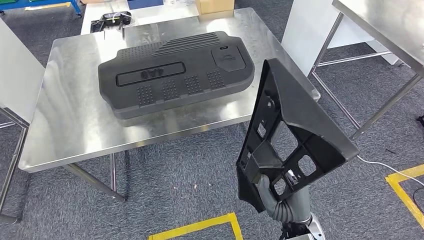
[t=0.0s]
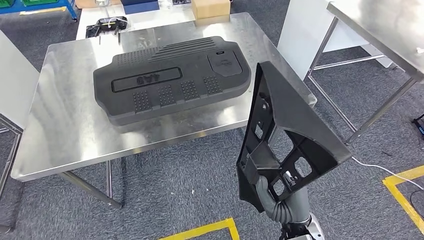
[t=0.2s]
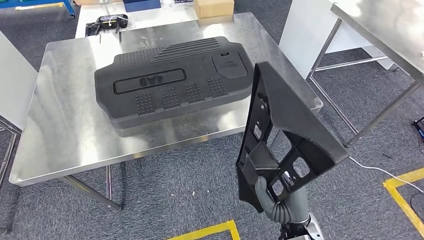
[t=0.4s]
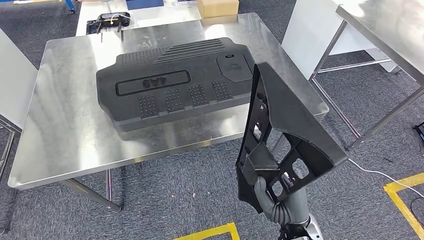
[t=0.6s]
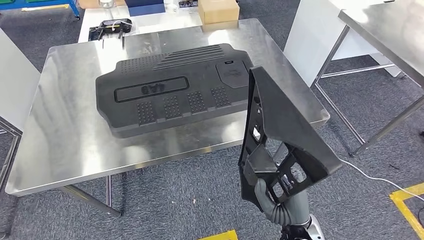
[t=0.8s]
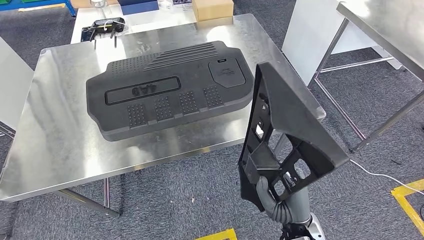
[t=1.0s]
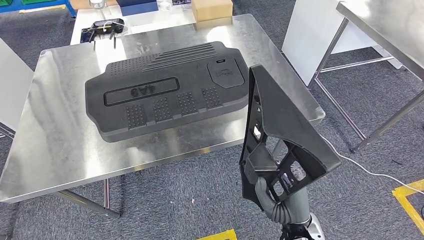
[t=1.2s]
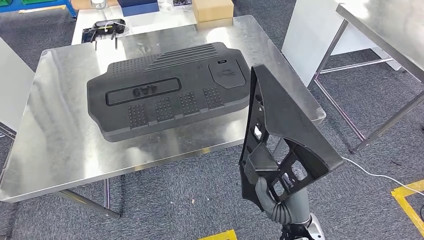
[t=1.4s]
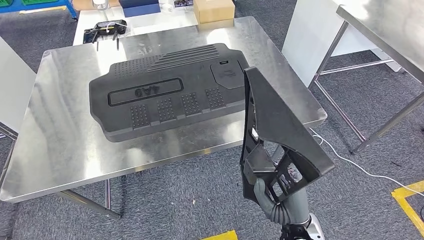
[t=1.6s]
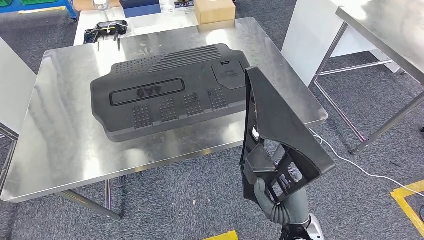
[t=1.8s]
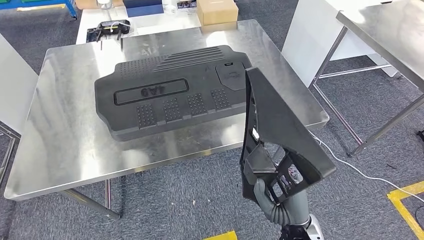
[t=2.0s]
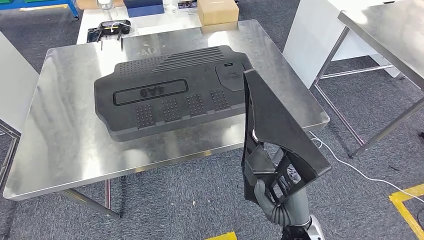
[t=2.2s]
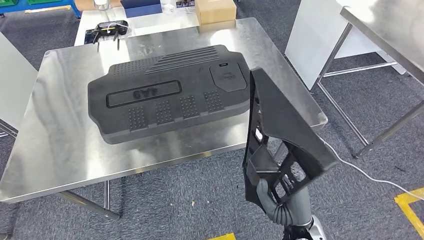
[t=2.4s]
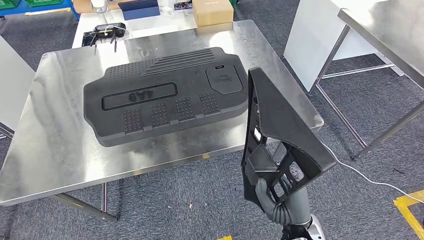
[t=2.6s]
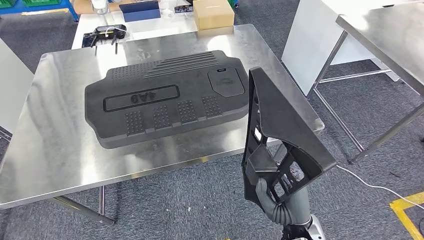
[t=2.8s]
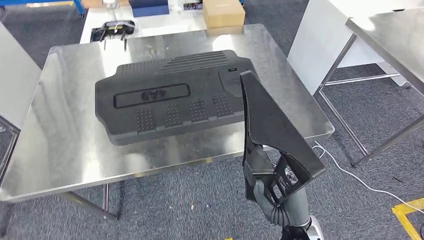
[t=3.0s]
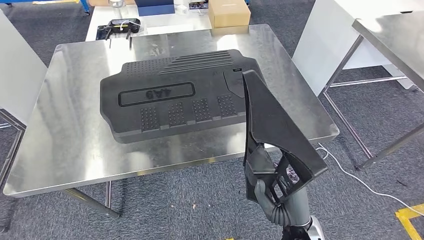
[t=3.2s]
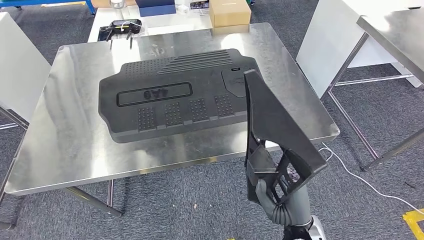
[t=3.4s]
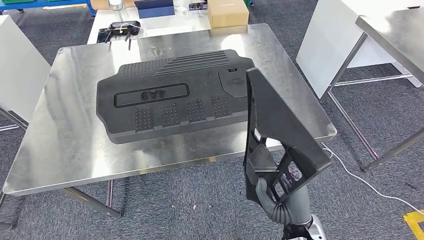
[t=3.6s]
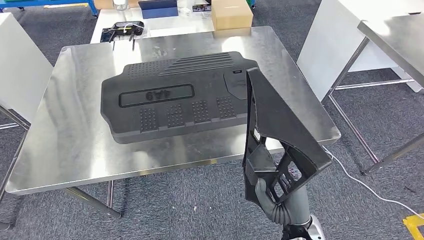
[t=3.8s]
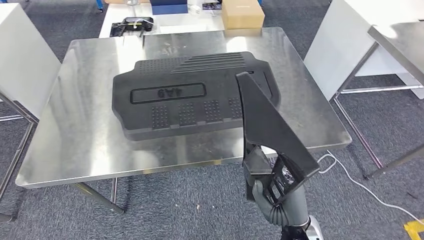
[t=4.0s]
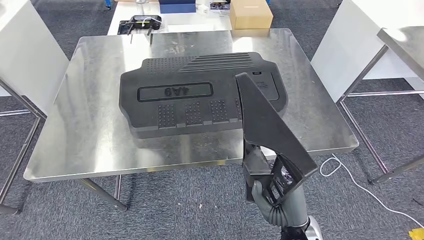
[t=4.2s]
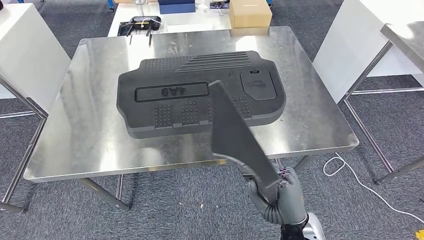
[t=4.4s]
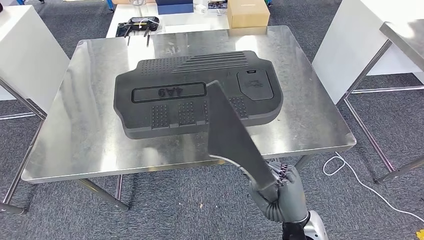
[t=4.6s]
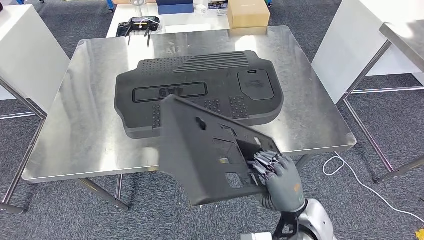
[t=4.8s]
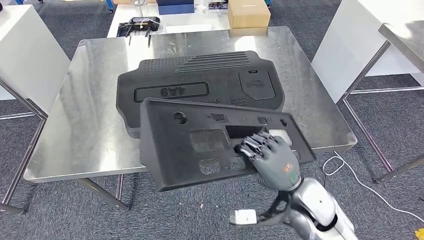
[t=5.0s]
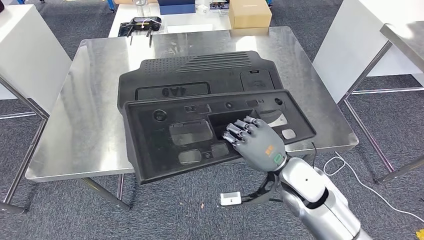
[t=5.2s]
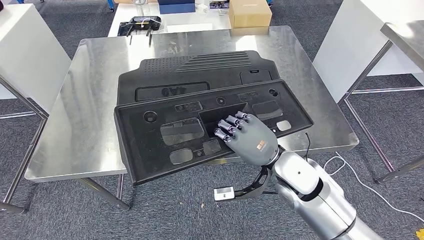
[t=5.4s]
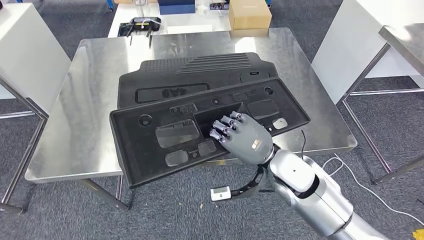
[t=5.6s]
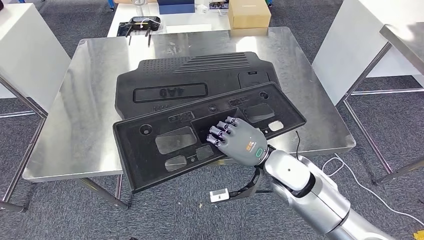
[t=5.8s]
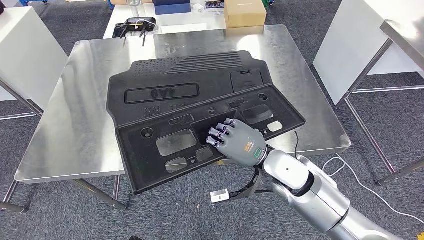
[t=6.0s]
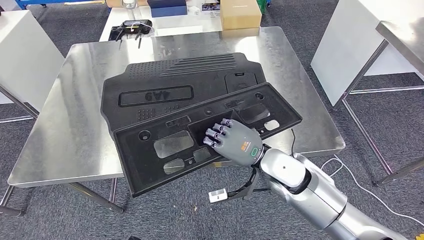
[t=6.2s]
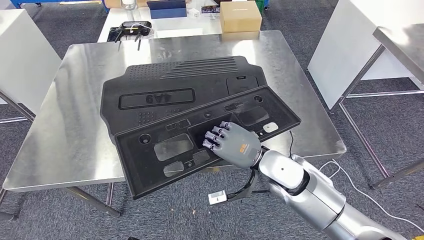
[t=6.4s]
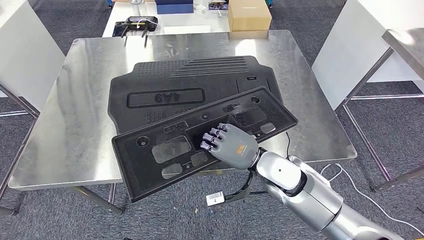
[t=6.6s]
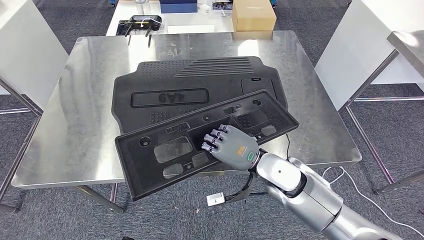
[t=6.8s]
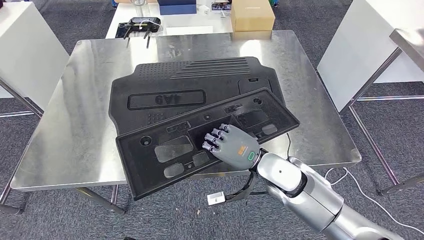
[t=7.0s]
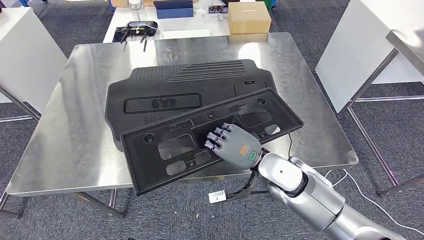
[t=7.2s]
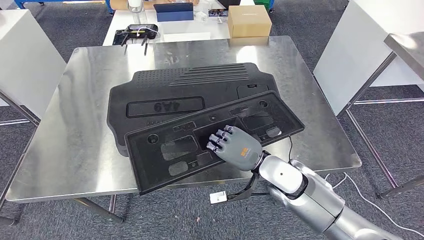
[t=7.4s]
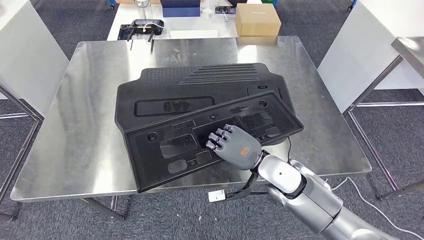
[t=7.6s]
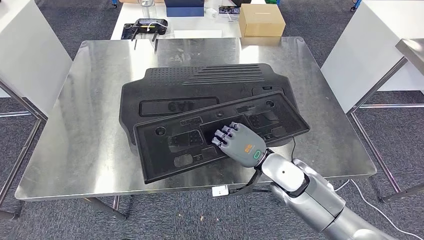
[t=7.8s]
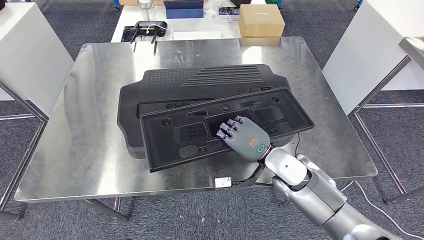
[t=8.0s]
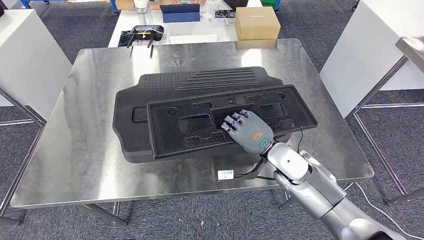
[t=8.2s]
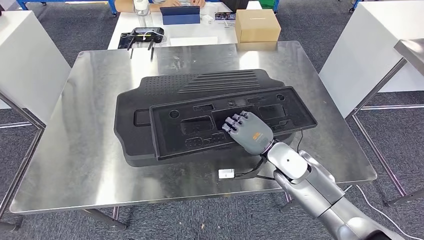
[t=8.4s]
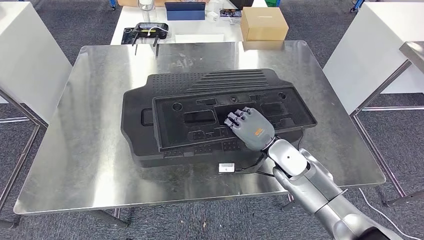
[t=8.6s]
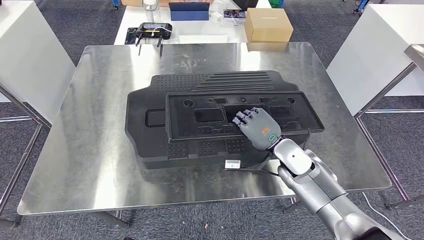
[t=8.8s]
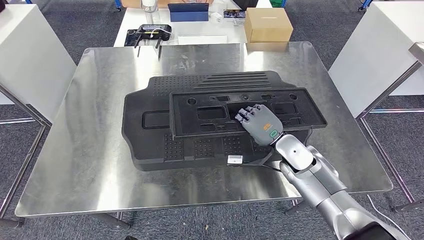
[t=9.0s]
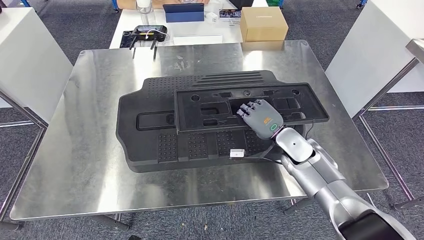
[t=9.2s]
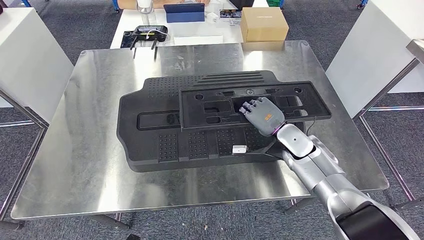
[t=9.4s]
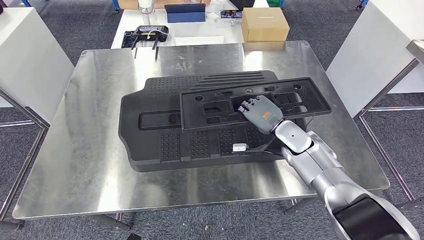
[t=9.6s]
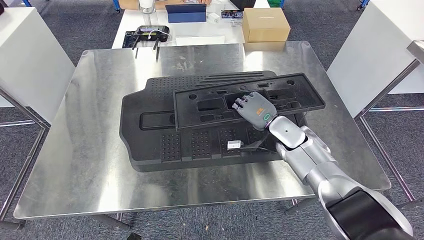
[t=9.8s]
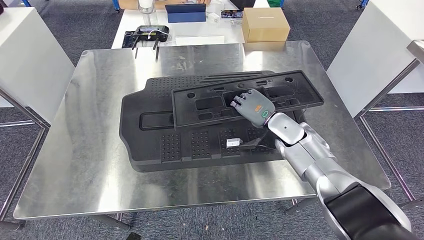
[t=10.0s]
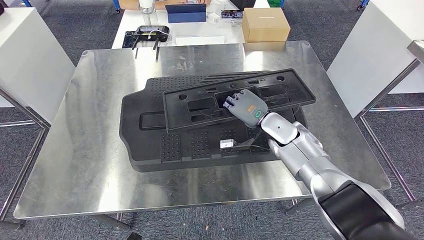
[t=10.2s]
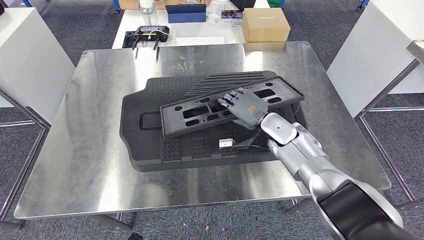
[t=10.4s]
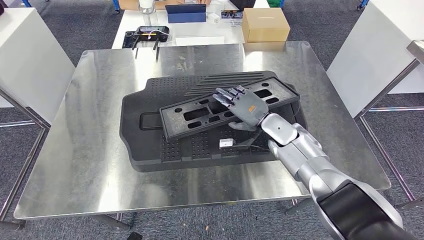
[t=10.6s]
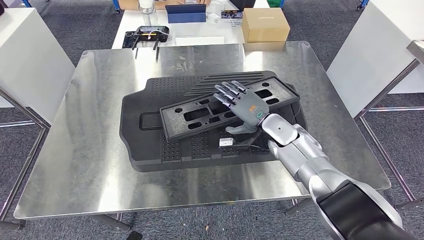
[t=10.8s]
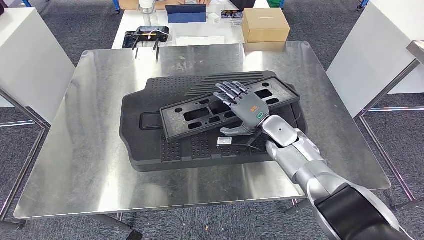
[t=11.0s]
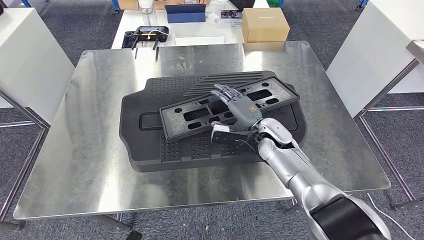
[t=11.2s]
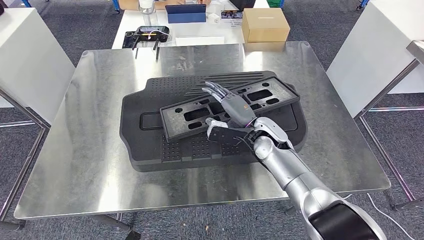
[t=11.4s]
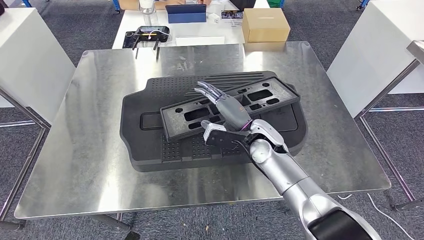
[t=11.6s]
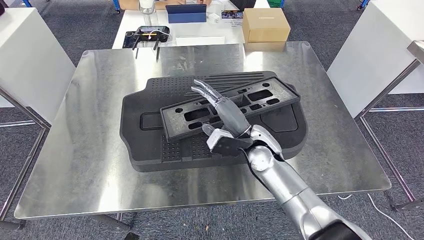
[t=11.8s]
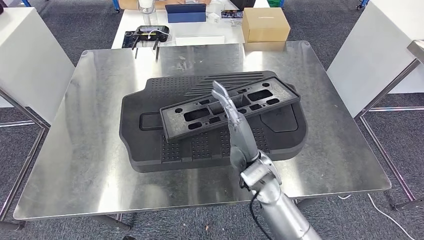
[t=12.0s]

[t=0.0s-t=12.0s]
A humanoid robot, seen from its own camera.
Step, t=0.0s to t=3.8s: Move the large material to the front of the workbench.
t=9.0s to t=10.4s: The right hand shifts roughly 5 cm forward.
t=10.4s to t=12.0s: The right hand heads backward and to the left, covering roughly 15 cm.

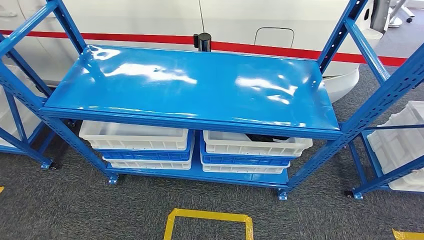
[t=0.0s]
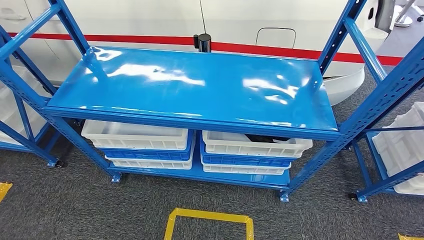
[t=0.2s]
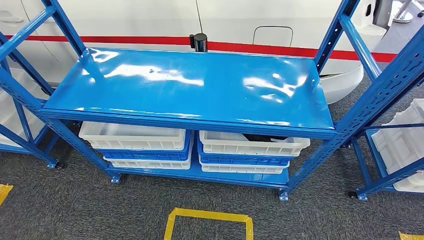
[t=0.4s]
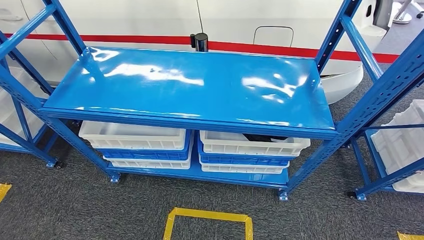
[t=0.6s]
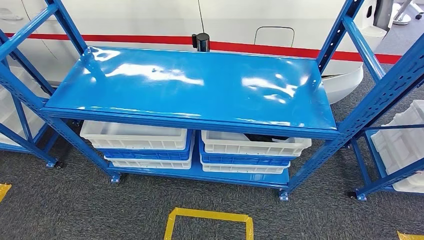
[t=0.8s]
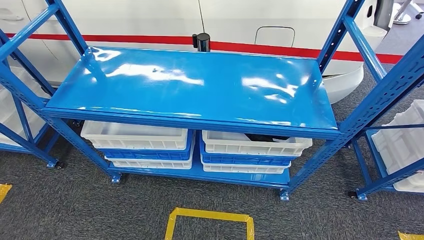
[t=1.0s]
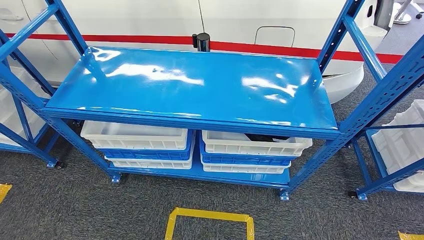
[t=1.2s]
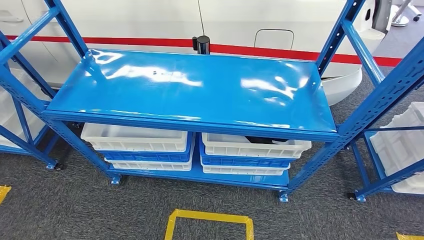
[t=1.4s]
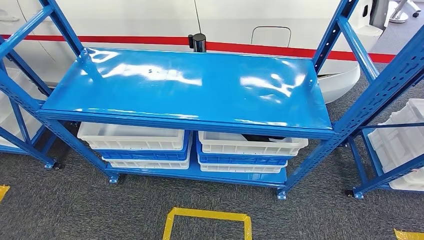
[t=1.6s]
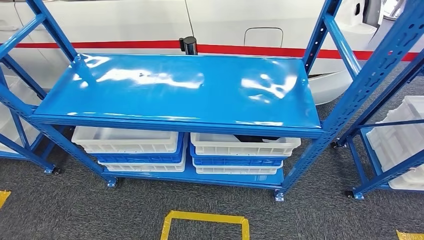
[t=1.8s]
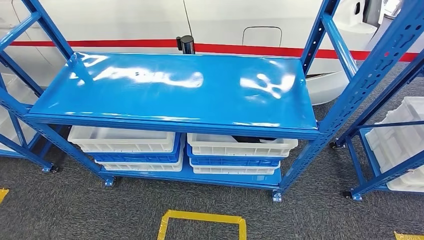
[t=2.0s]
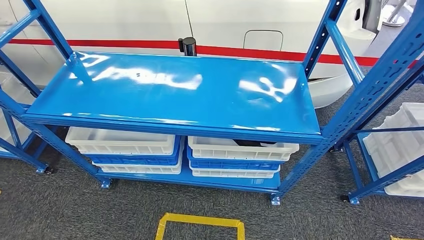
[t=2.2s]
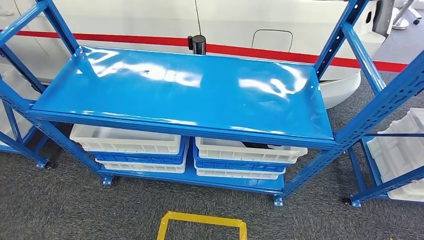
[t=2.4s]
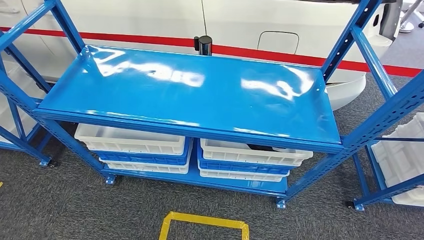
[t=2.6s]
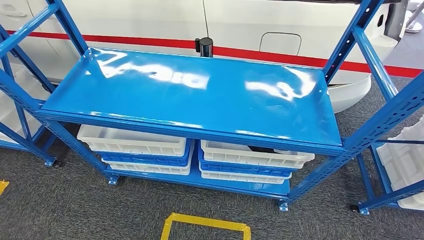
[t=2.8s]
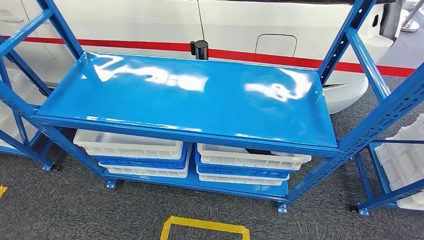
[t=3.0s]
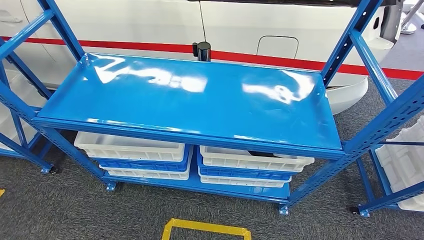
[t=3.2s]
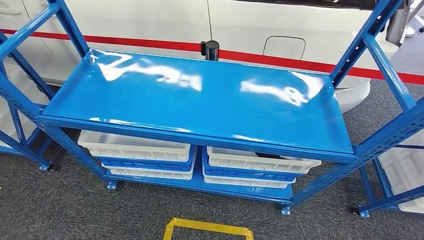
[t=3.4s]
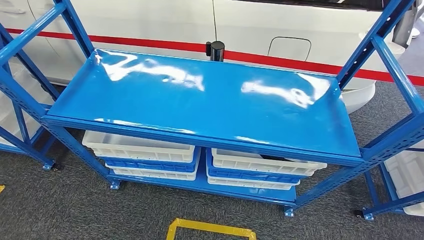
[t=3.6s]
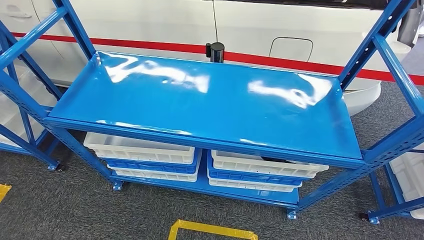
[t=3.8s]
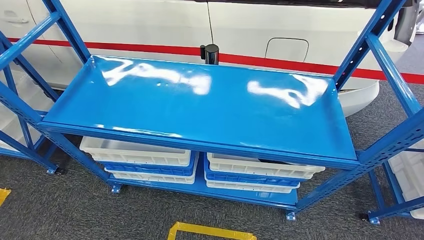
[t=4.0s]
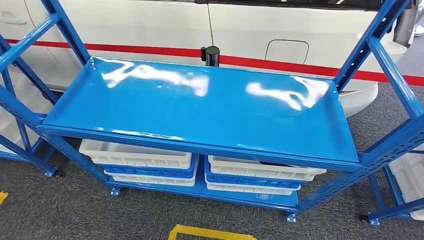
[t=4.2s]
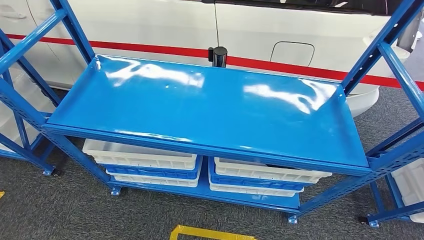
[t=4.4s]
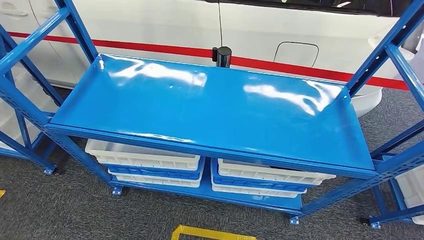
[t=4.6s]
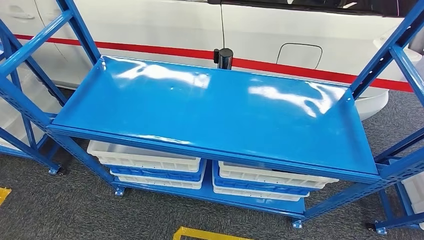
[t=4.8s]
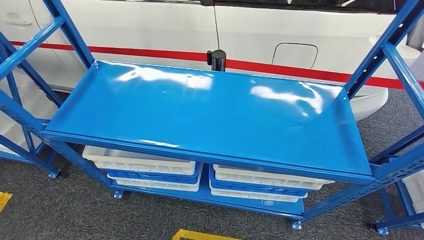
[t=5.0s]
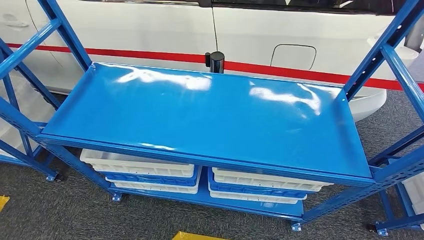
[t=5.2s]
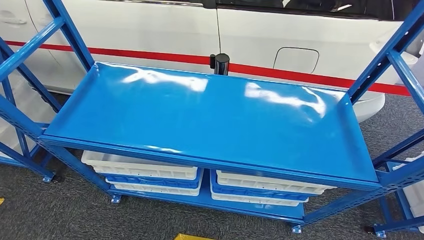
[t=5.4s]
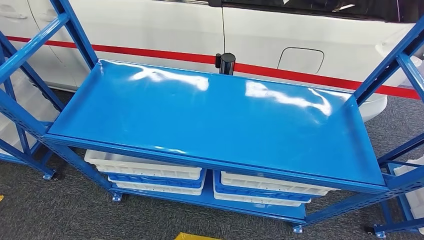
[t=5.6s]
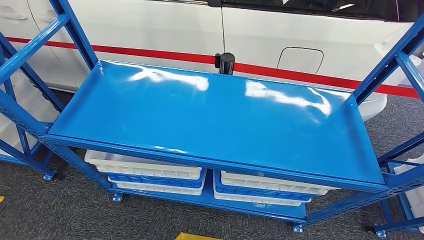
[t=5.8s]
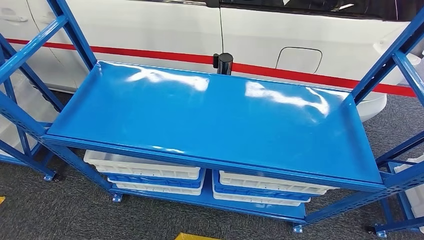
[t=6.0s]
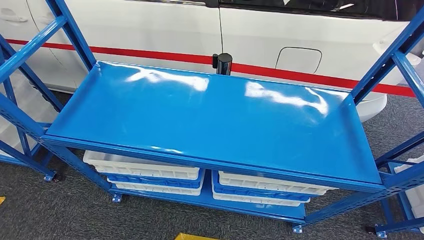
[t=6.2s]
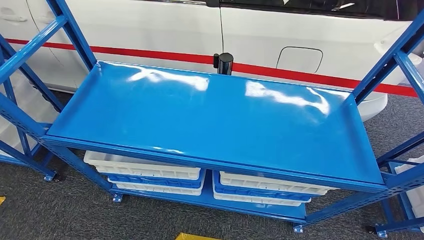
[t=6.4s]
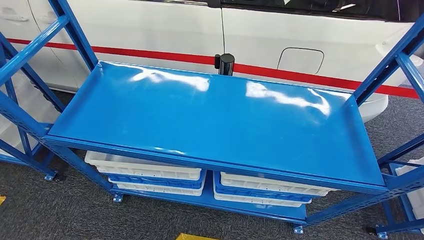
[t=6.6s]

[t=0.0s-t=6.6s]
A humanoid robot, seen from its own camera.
t=0.0s to t=1.6s: The two hands keep their place.
